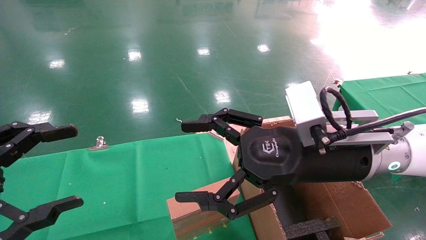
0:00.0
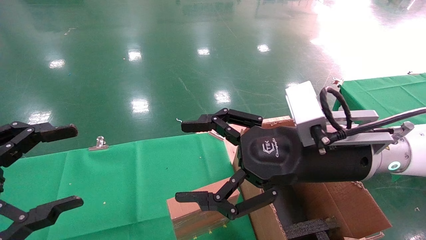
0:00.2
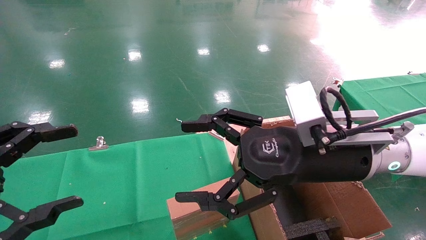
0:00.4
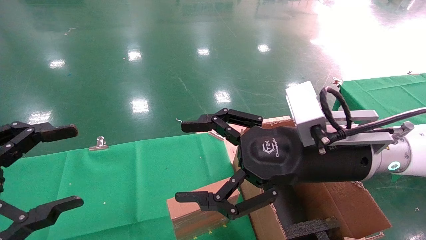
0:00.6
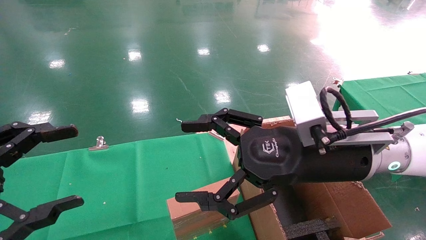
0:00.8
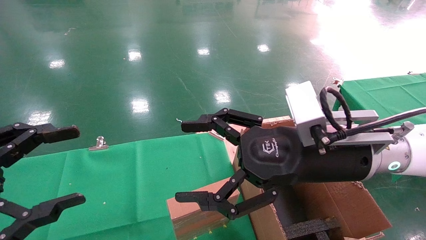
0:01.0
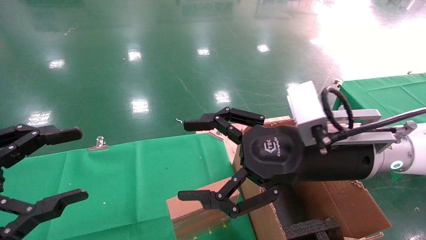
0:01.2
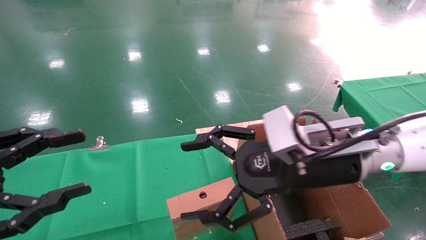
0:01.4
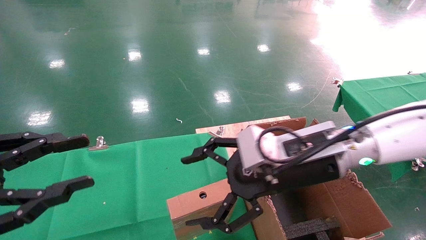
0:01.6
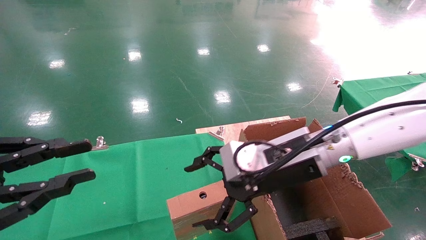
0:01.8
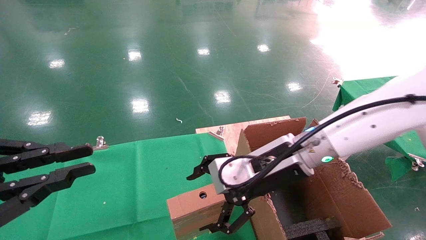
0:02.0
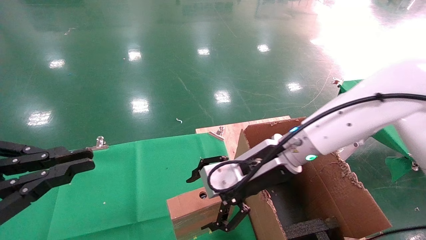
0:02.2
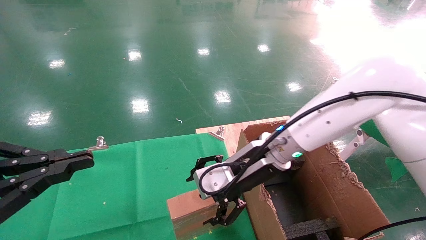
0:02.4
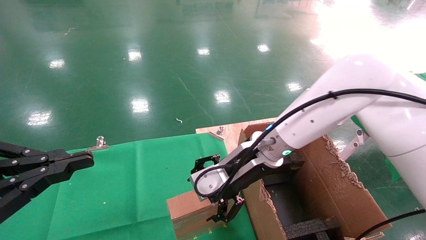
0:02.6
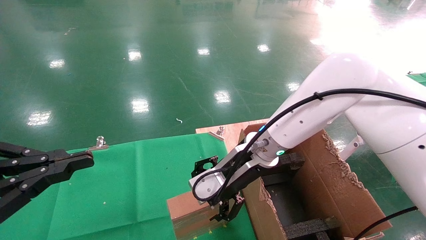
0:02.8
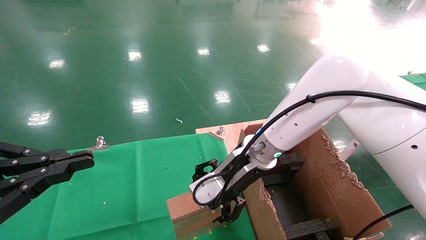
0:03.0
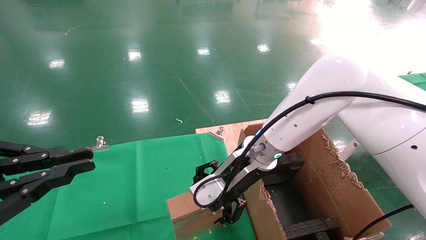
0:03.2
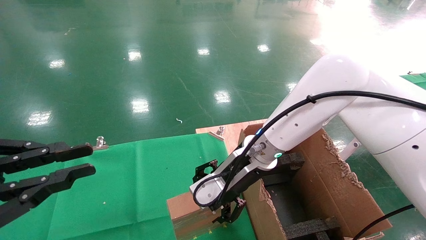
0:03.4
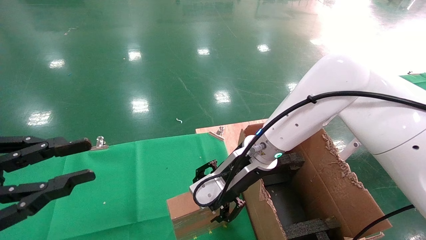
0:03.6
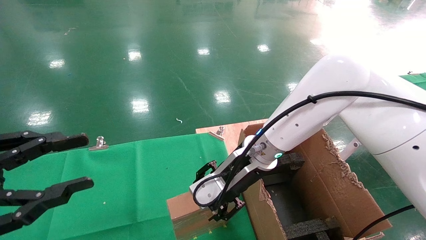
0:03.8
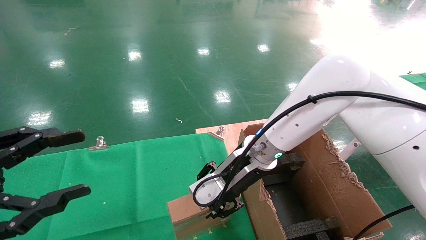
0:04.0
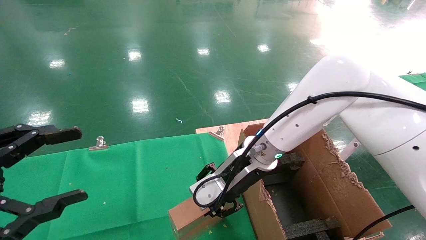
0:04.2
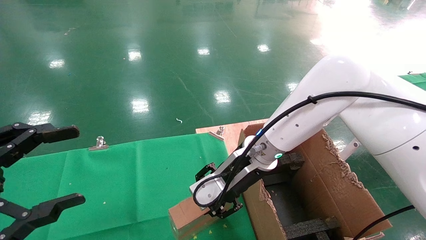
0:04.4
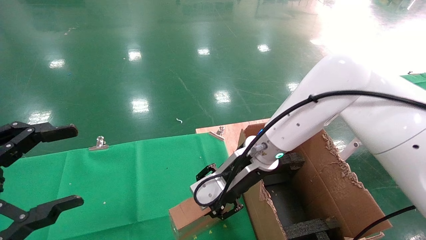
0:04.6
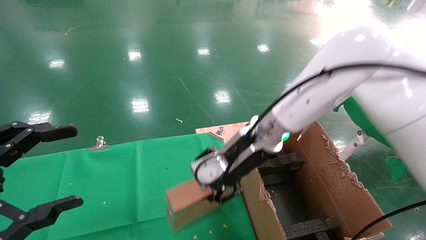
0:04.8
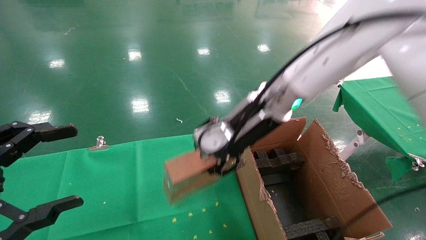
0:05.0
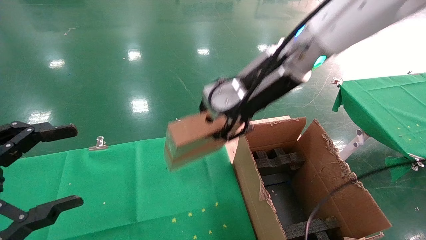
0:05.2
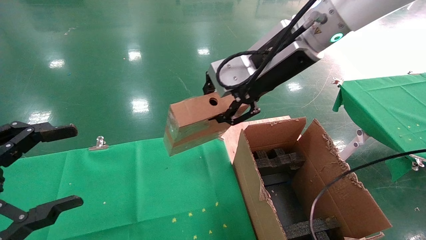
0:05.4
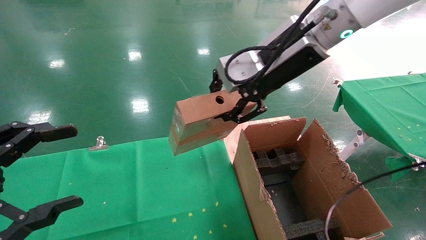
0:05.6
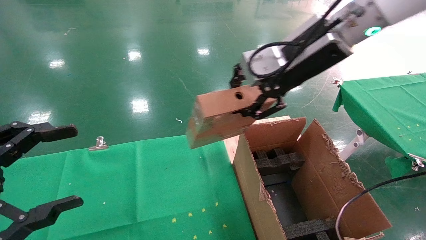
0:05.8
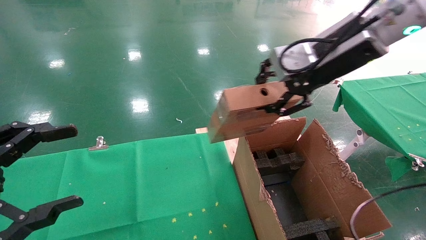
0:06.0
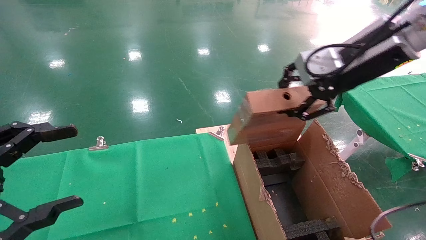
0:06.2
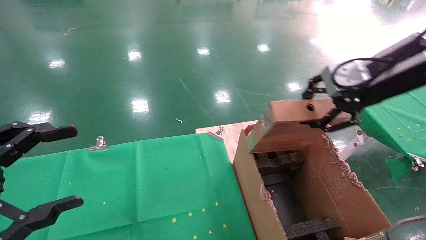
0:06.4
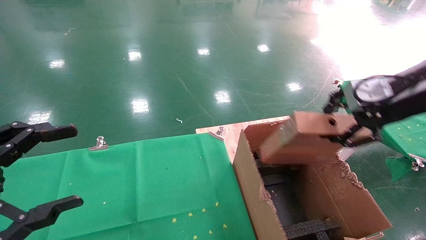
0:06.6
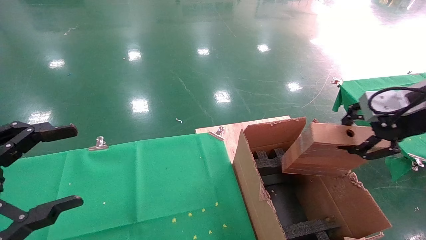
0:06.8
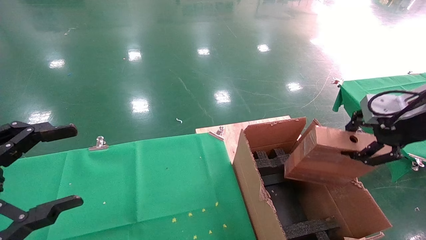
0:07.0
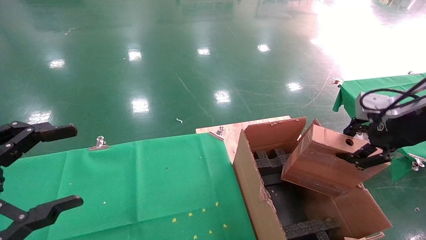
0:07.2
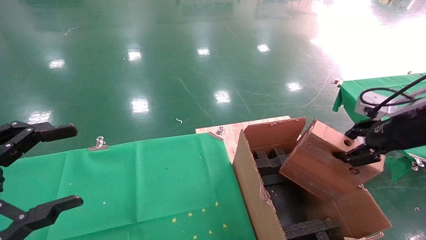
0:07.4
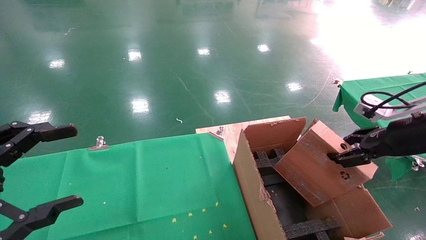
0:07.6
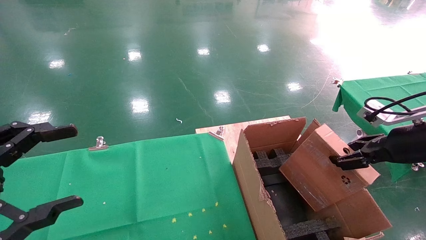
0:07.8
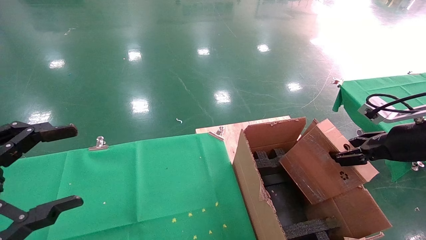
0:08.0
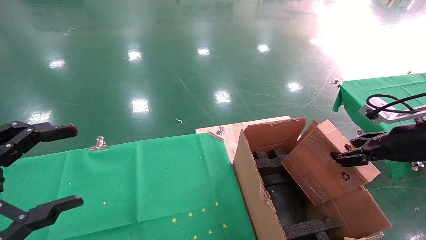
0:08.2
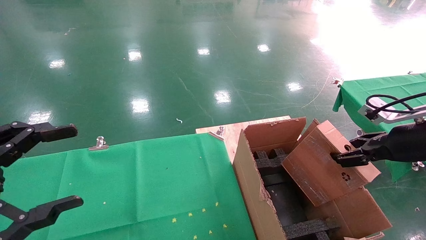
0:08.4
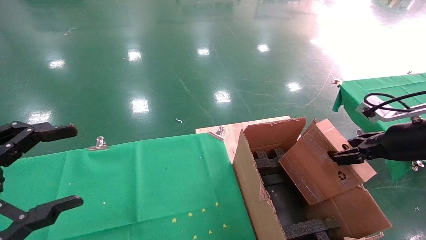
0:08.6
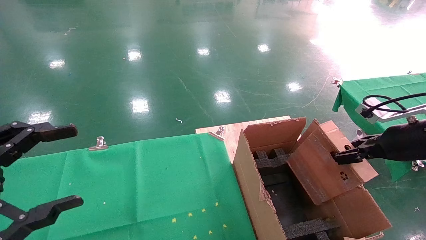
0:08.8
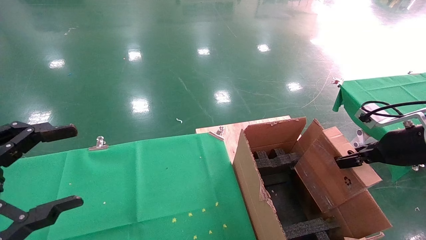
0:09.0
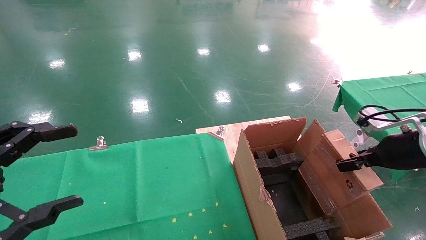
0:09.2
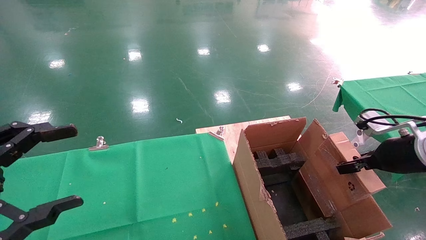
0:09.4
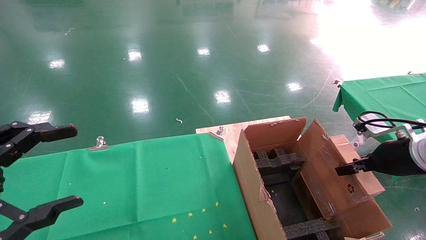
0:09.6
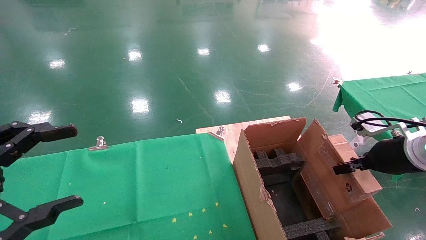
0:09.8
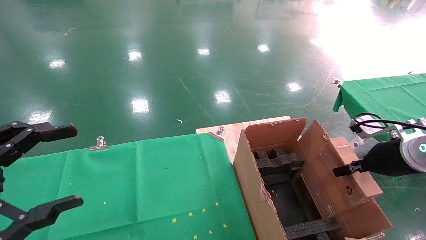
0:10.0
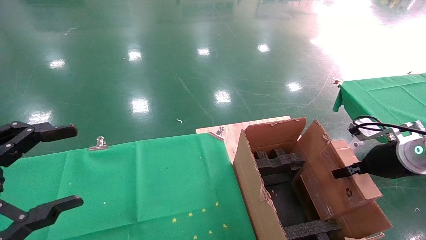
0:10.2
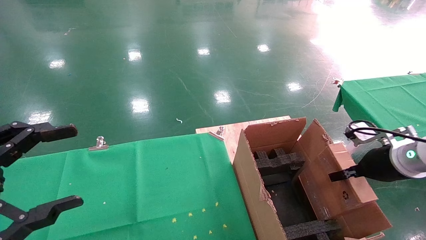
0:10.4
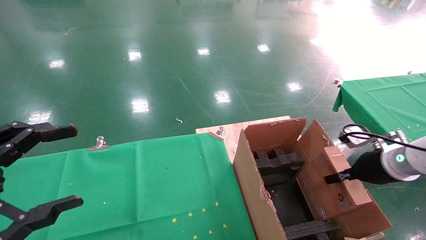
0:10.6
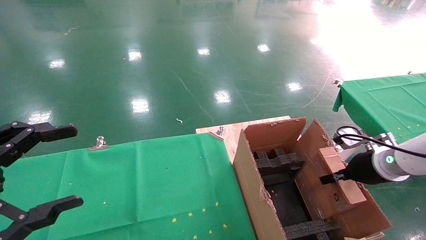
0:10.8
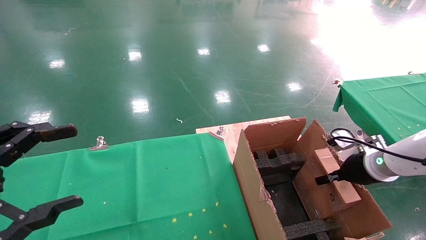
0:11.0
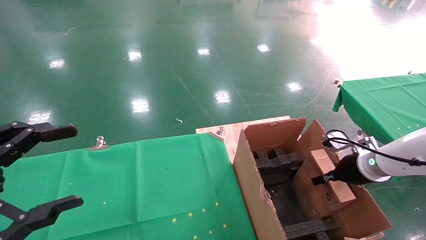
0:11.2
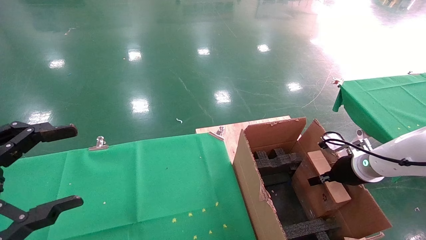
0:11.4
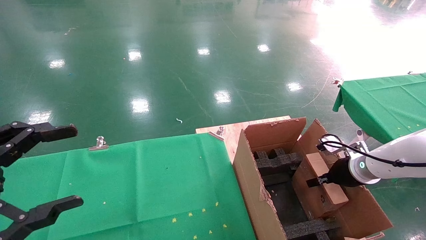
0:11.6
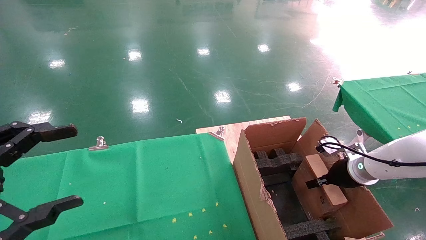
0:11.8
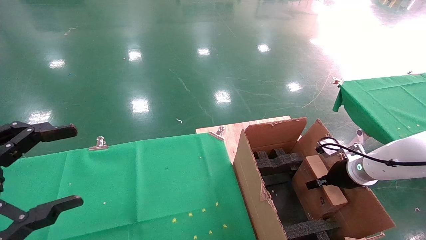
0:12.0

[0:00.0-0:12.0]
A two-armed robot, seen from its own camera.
Task of the whole recording: using a robotic arm to pick up a cardboard box and palace it the carton.
Step, 0:01.4 to 0:04.0: Pick up the mouse and the power cord paper box.
0:00.0 to 0:01.6: The left gripper closes up.
0:01.6 to 0:03.0: The right gripper moves forward and to the left, approximately 10 cm; the left gripper closes up.
0:03.0 to 0:04.4: The right gripper closes, while the left gripper opens its fingers.
0:04.4 to 0:06.0: The right gripper goes about 25 cm upward and to the right.
0:06.0 to 0:07.6: The right gripper travels to the right and downward by approximately 25 cm.
0:09.0 to 0:10.4: The right gripper ends up roughly 5 cm from where it was.
0:10.4 to 0:12.0: The right gripper shifts about 10 cm downward and forward.

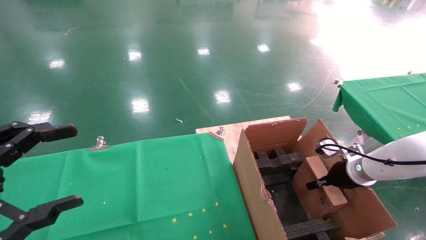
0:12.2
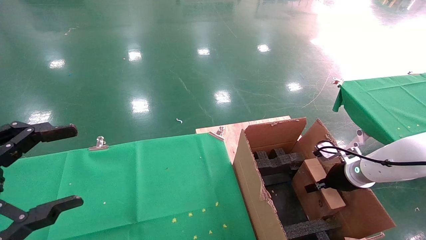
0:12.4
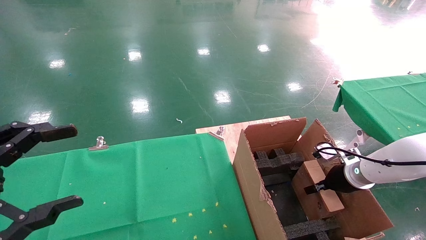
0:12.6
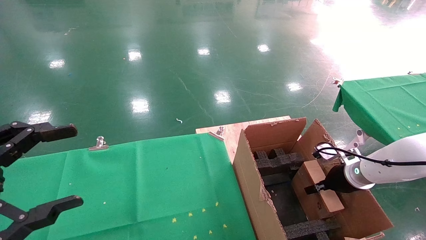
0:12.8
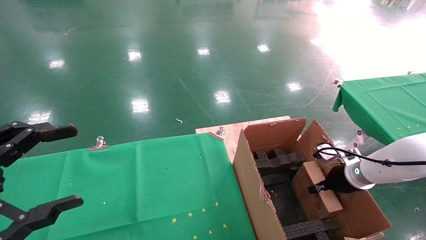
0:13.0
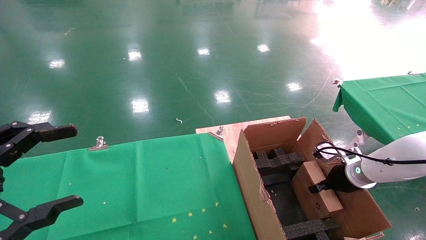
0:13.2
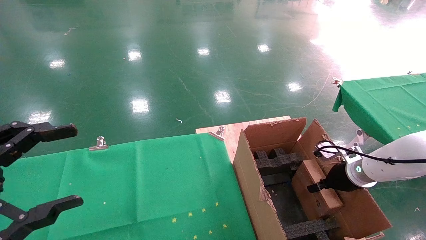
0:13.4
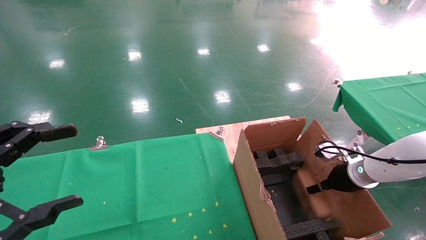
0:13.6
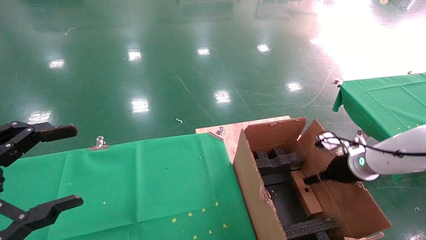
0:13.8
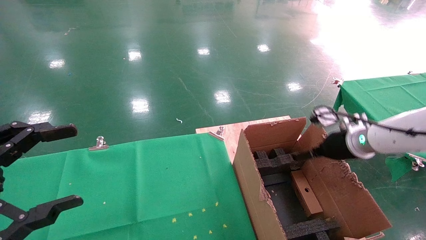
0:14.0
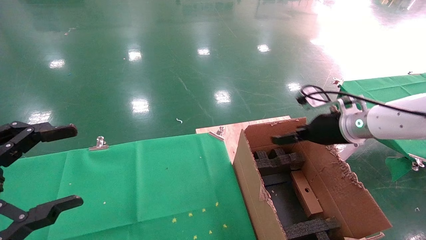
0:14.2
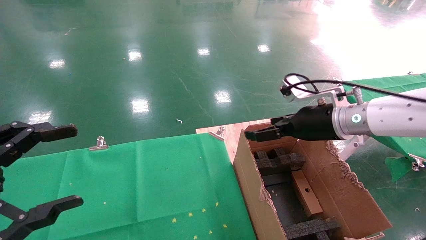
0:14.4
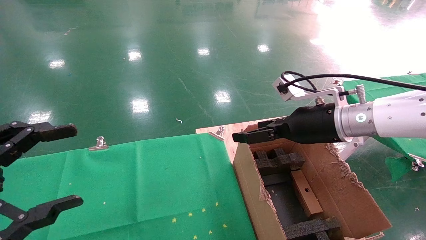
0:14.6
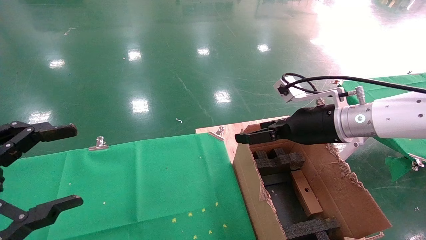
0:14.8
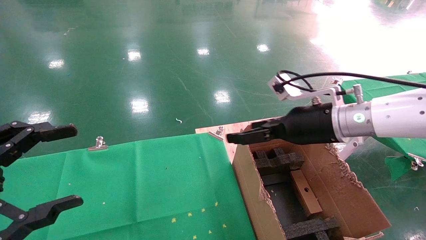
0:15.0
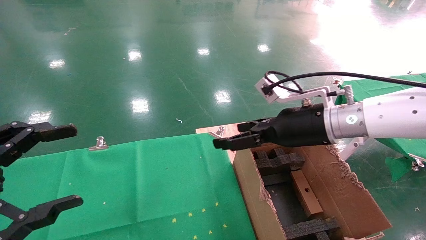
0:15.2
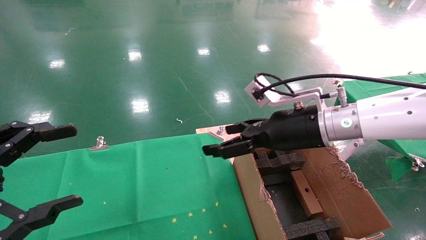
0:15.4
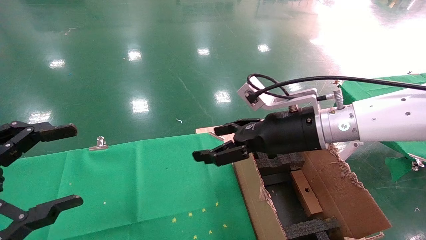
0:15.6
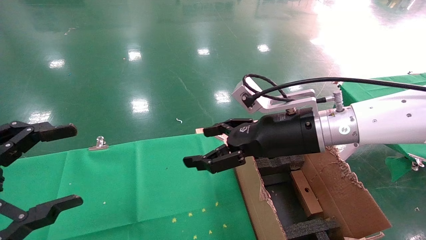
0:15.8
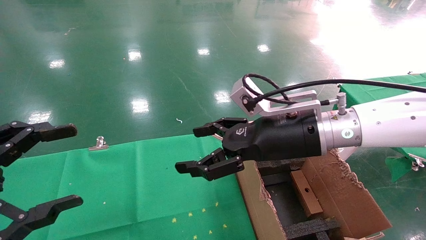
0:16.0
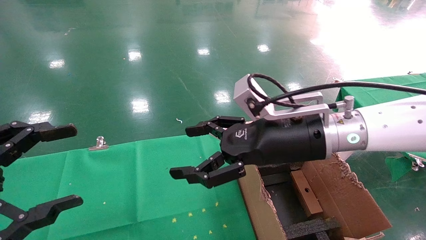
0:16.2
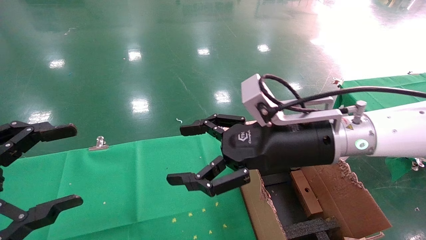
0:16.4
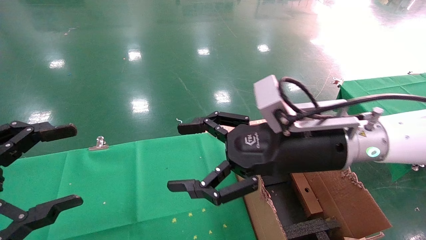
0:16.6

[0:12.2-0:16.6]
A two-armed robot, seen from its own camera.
Task of the whole recording: using a robotic arm to pick up a cardboard box and palace it the carton.
0:12.2 to 0:13.6: The right gripper opens its fingers.
0:13.6 to 0:15.2: The right gripper moves to the left and upward, roughly 25 cm, and opens its fingers.
0:15.2 to 0:16.6: The right gripper shifts approximately 5 cm backward.
